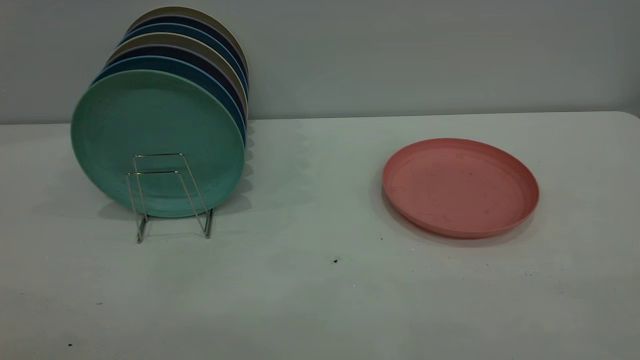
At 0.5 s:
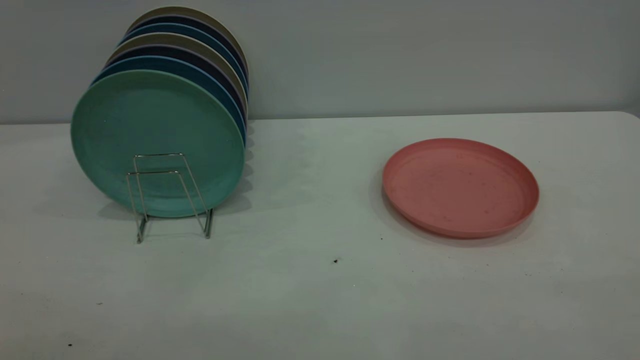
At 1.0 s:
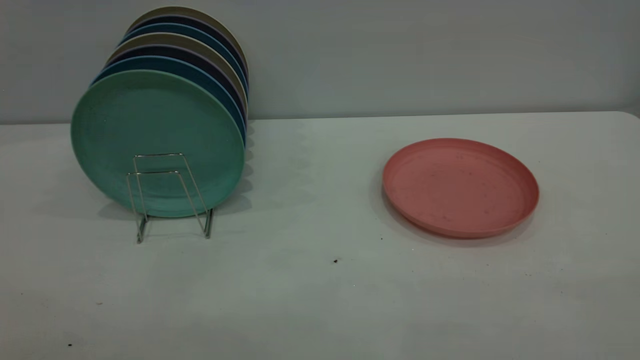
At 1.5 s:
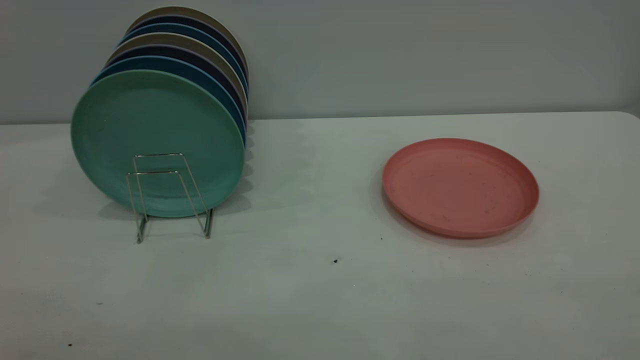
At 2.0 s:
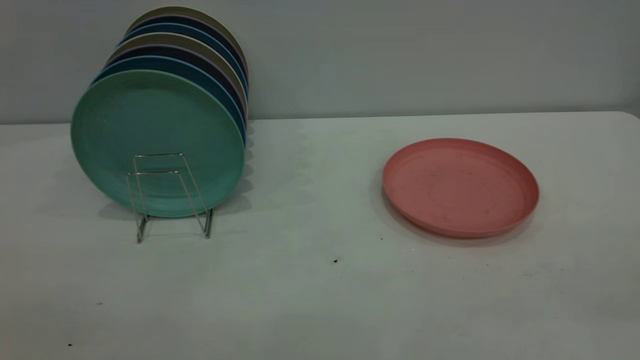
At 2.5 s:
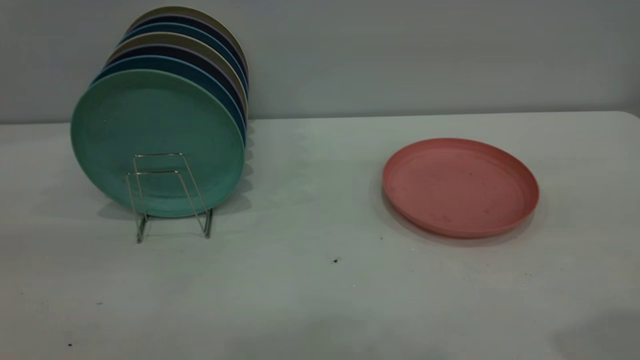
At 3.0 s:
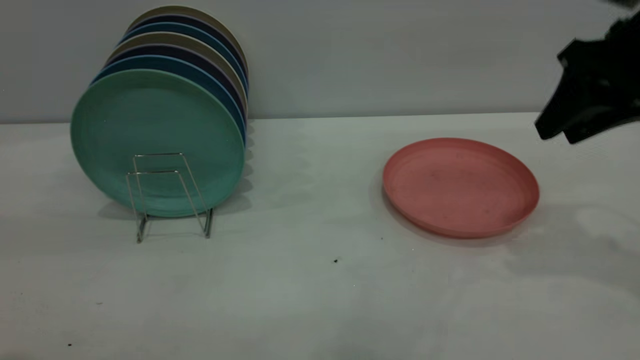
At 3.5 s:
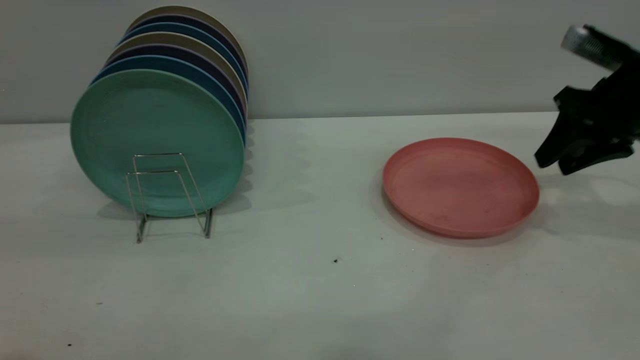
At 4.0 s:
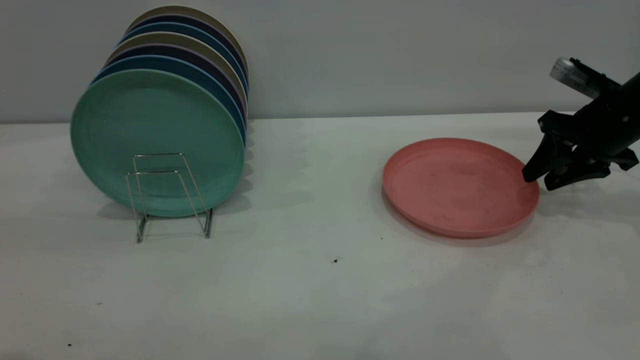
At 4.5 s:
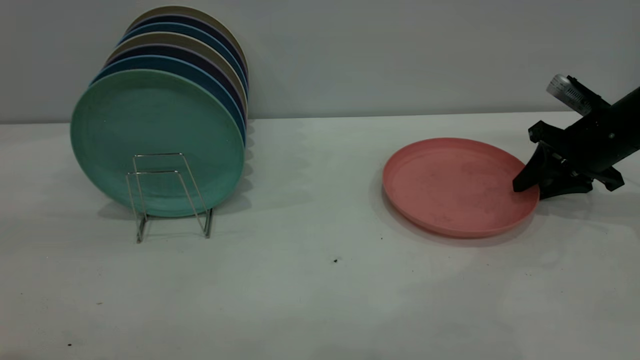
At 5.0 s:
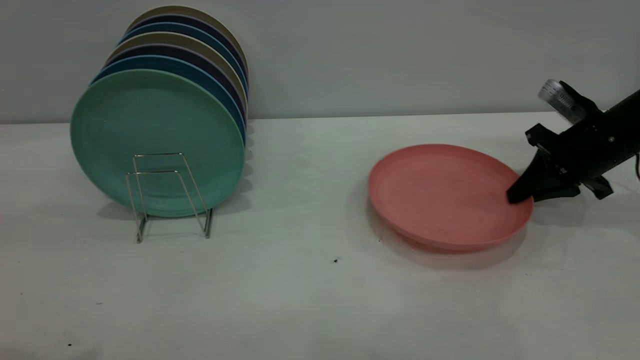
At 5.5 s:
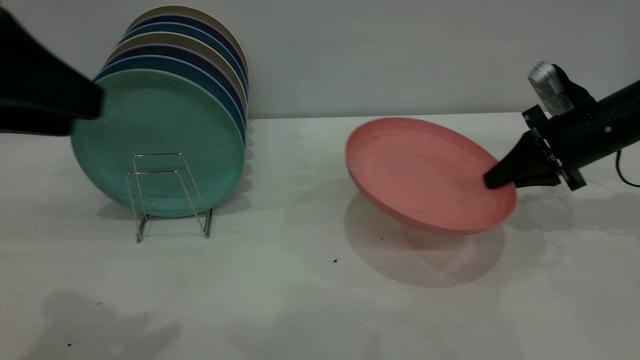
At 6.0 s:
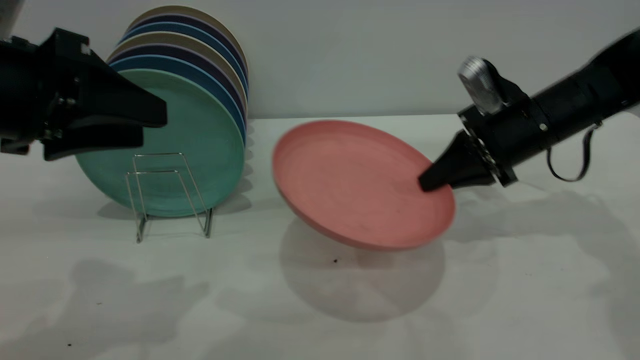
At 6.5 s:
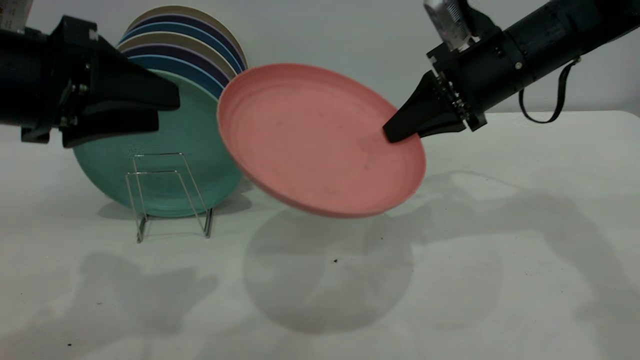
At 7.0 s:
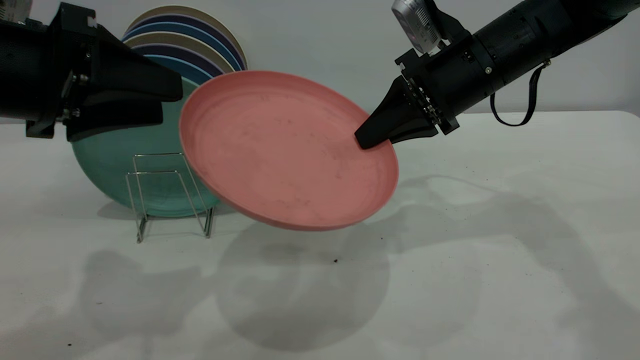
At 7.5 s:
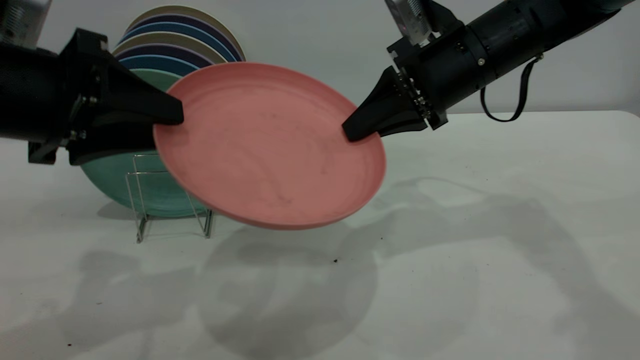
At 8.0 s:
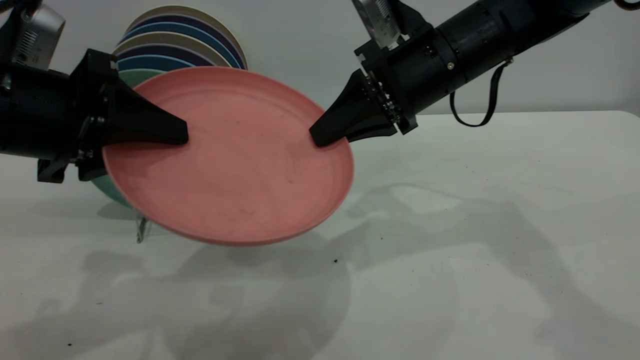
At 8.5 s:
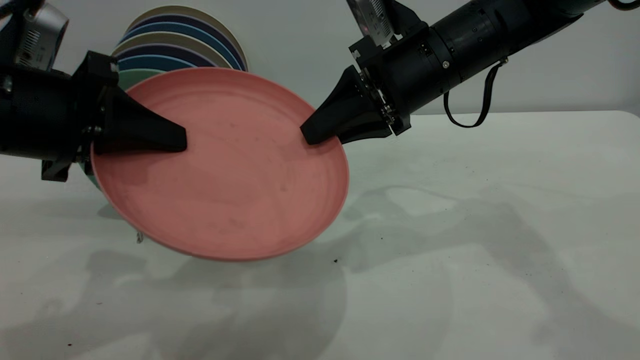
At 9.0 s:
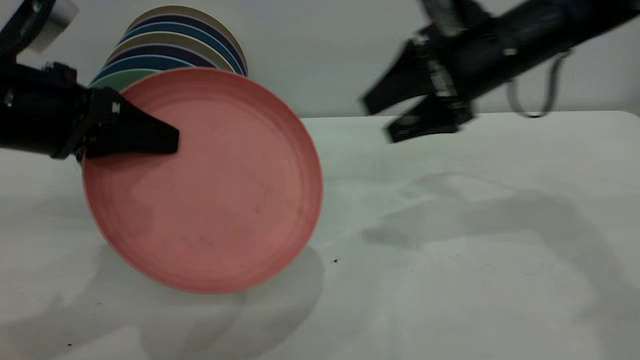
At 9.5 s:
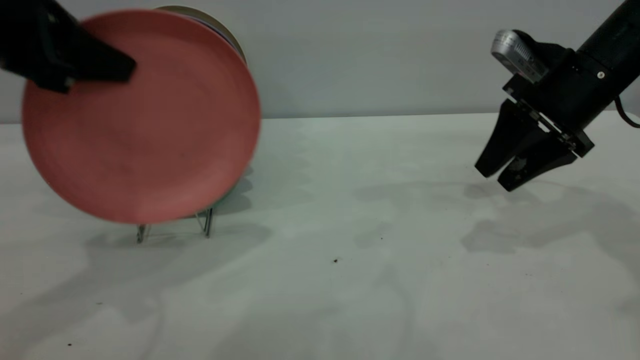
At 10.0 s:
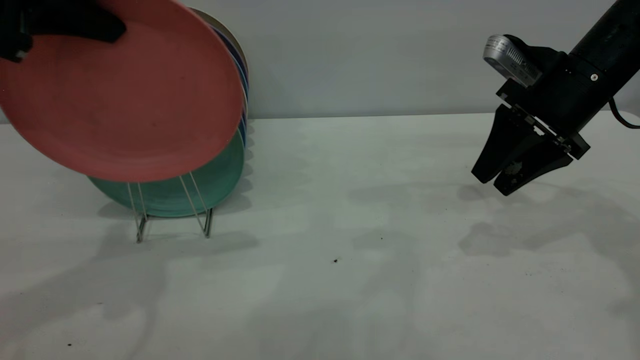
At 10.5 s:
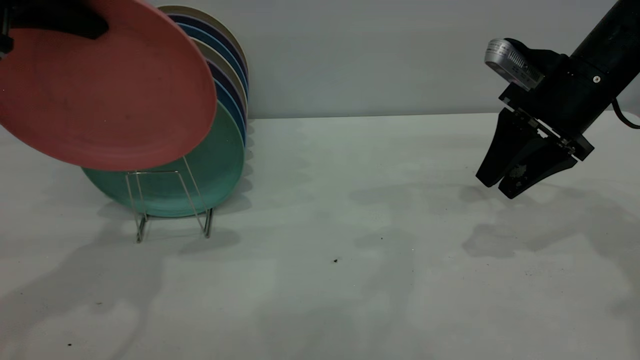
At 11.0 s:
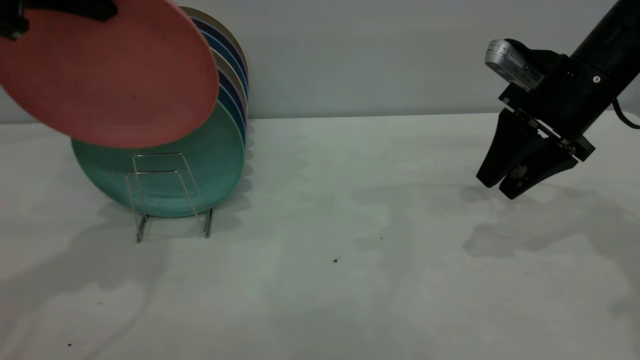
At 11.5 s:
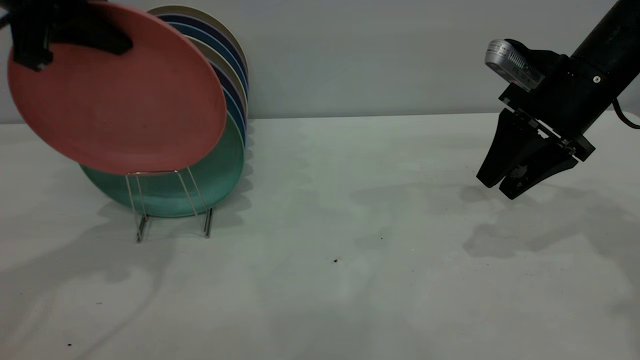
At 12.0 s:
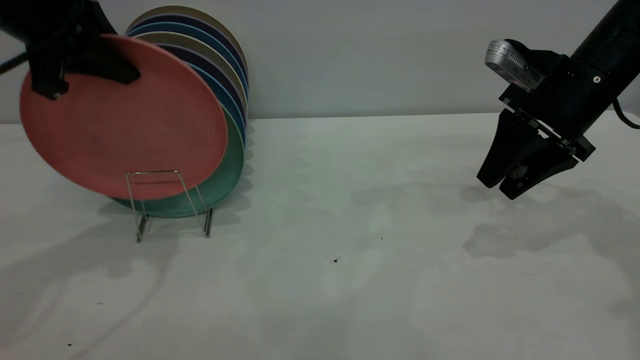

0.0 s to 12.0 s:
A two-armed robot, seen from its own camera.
Task of the whole recording: the right gripper grasp the pink plate, the right gripper pass the pink plate to the left gripper, and the left gripper place the pink plate on the plate rack.
Step, 0.0 to 5.0 s: Pick up the plate with the right gripper.
Step, 5.5 to 9.0 s: Pass the plate from the right gripper to the left gripper.
2.0 to 4.0 s: The right gripper goes about 50 cm forward and downward.
4.0 to 6.0 s: The right gripper is displaced to the left by roughly 10 cm, and closes. The left gripper heads downward and forward, covering about 15 cm.
6.0 to 8.0 s: The right gripper goes approximately 15 cm to the left and upward.
8.0 to 10.0 s: The right gripper moves to the right, about 15 cm, and opens; the left gripper is displaced upward by about 10 cm, and closes.
10.0 to 12.0 s: The left gripper goes approximately 10 cm forward and downward.

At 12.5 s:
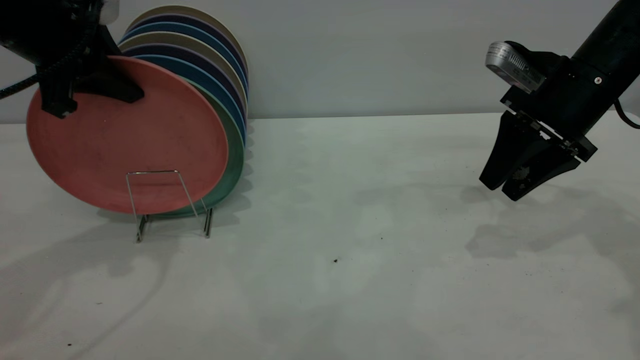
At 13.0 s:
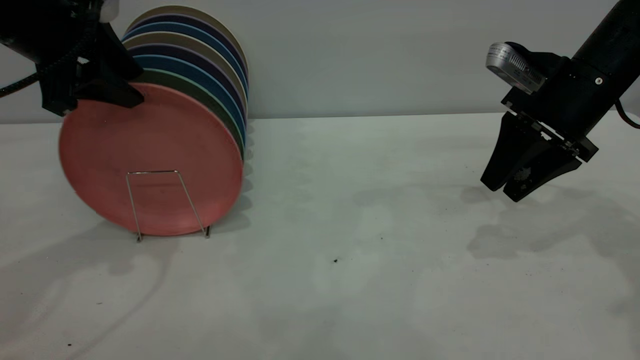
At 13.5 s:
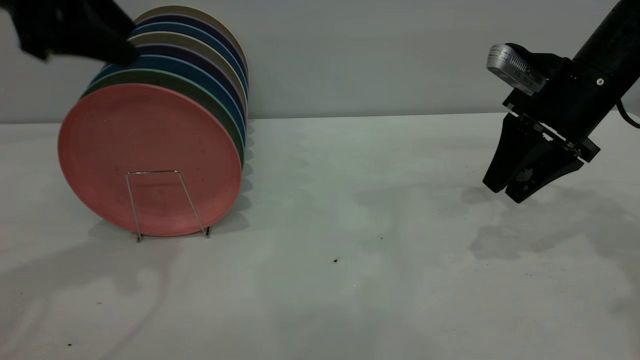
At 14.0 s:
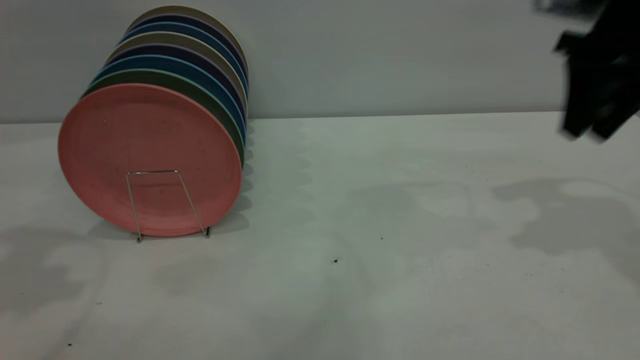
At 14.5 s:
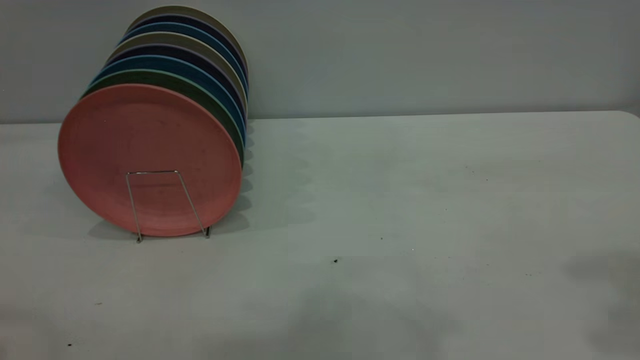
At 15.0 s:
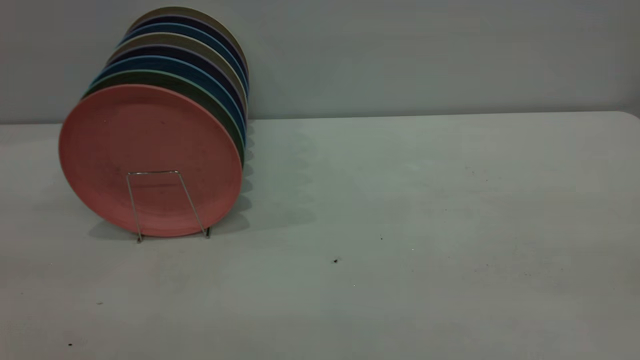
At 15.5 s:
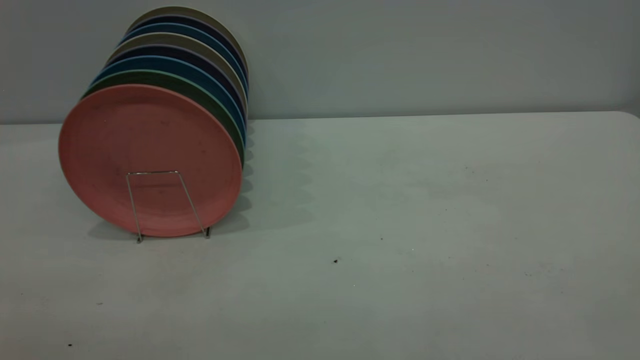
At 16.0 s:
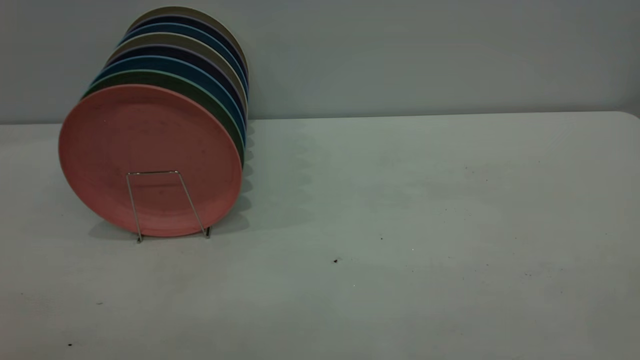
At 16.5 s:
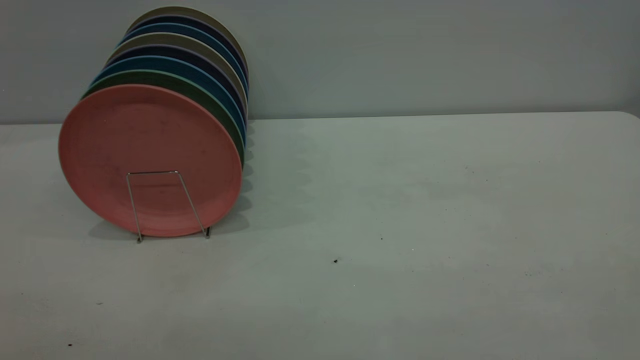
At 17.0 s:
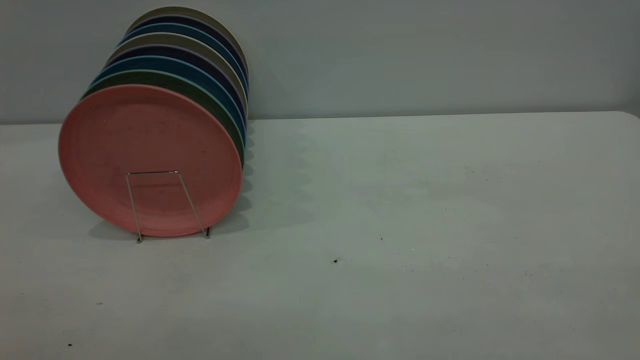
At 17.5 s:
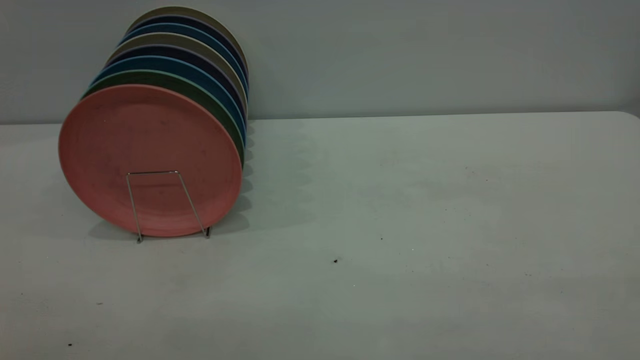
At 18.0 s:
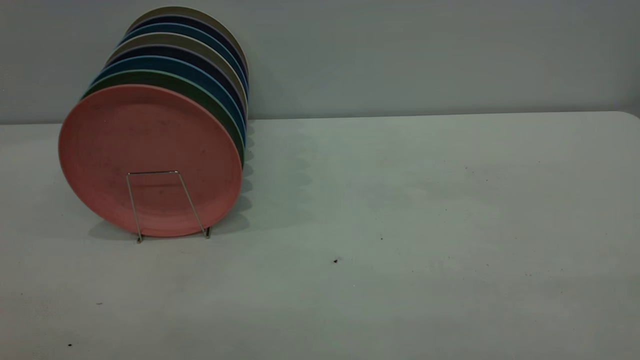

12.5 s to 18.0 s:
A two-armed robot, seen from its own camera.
Task of the whole recording: the right gripper grasp the pink plate, the right gripper pass the pink plate to the left gripper, and the left gripper place the pink plate on the plate rack.
12.5 to 14.5 s: The left gripper moves backward and upward, roughly 25 cm, and opens. Meanwhile the right gripper moves upward and backward, about 30 cm.

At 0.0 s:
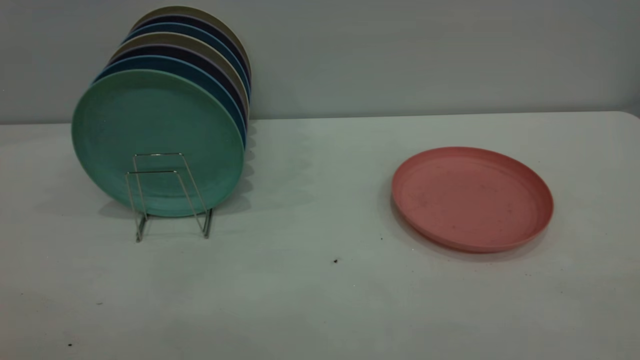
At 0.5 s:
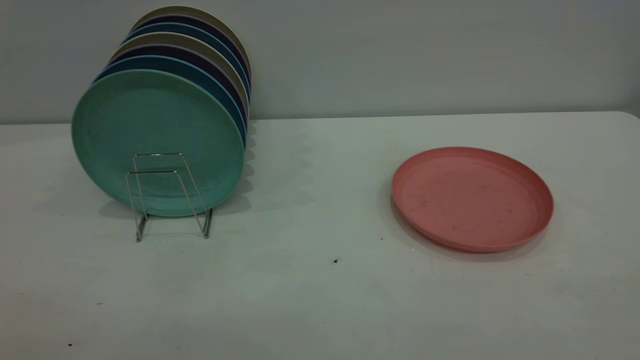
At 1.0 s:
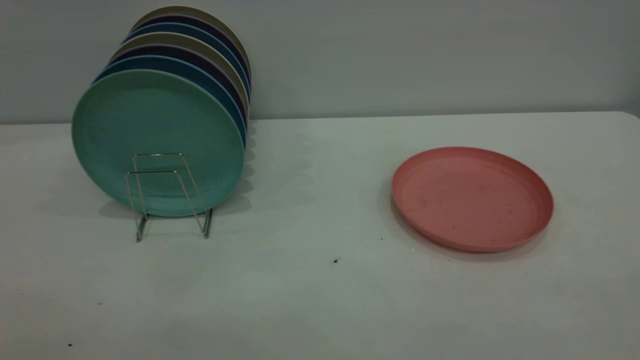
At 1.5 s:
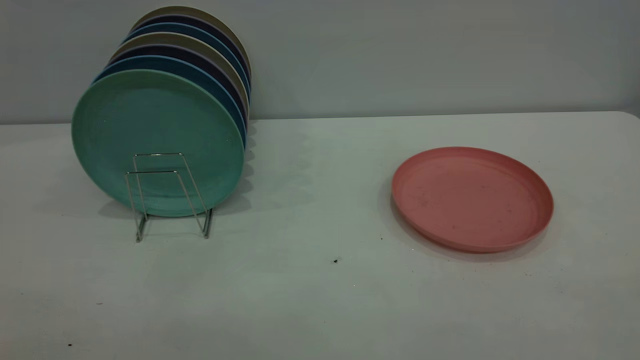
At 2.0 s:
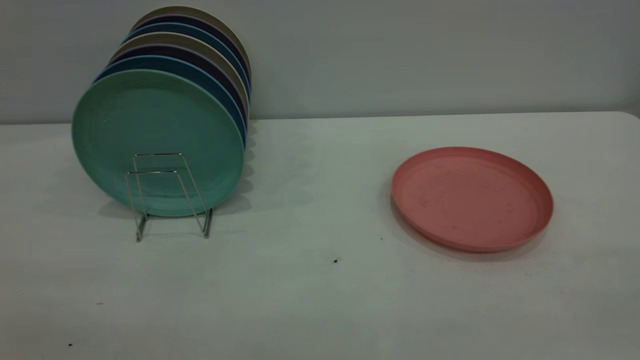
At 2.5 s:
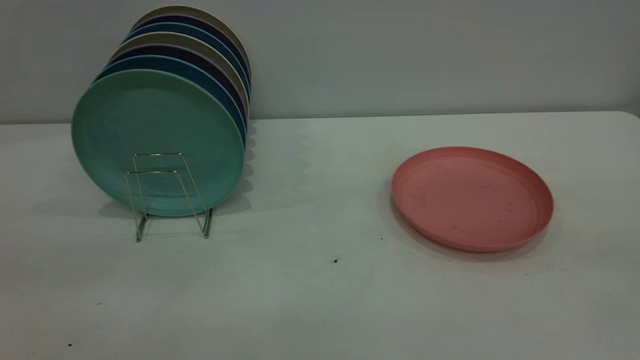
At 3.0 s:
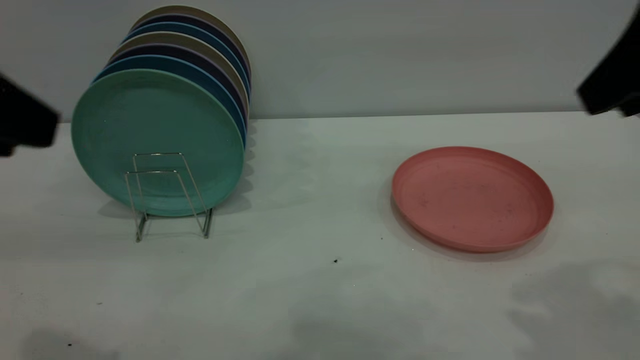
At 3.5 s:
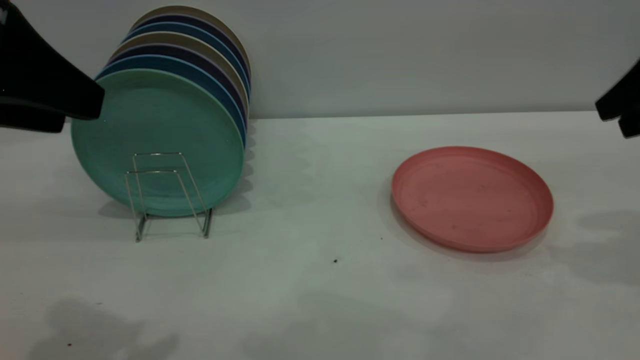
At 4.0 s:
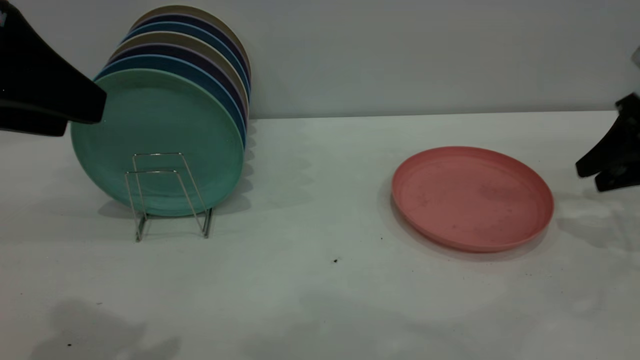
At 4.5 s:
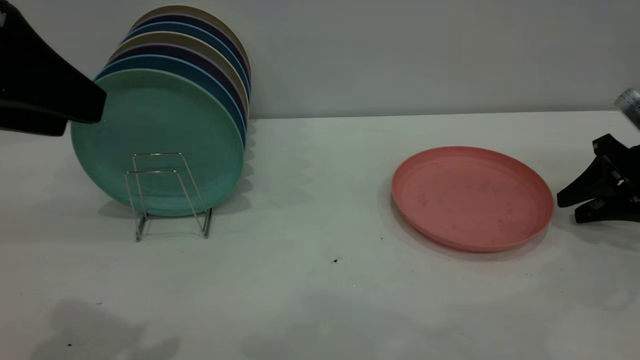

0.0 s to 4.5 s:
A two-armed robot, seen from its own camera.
Task of the whole recording: the right gripper grasp the pink plate, the right gripper pass the pink plate to the left gripper, and the left gripper place the pink plate on the plate rack.
2.0 to 4.5 s: The left gripper heads forward, covering approximately 20 cm. Meanwhile the right gripper shifts roughly 50 cm forward and downward.
